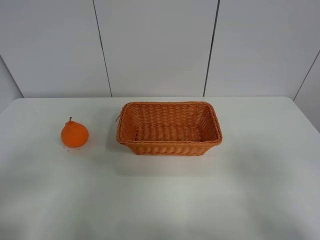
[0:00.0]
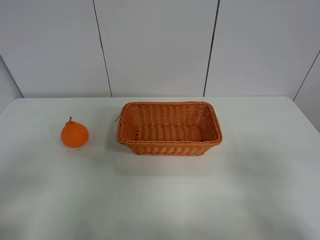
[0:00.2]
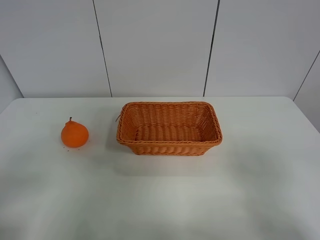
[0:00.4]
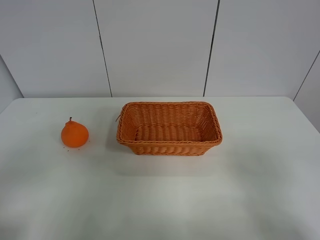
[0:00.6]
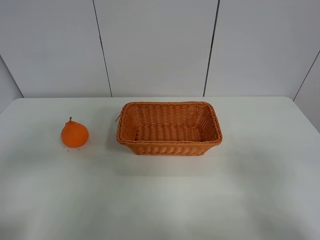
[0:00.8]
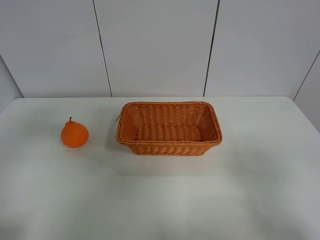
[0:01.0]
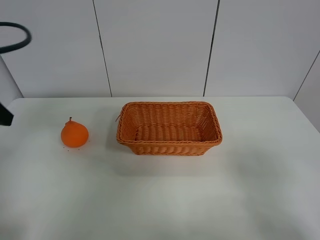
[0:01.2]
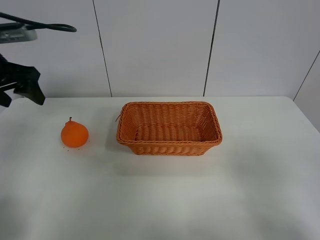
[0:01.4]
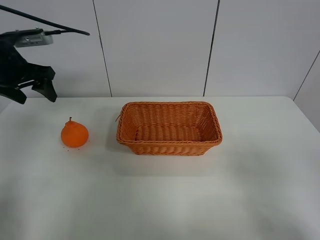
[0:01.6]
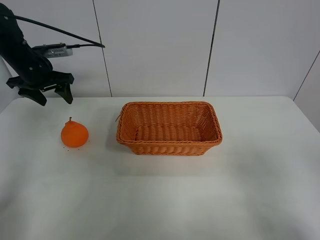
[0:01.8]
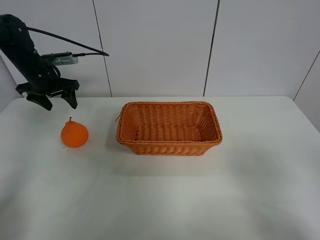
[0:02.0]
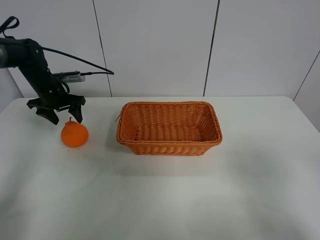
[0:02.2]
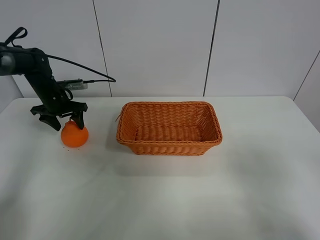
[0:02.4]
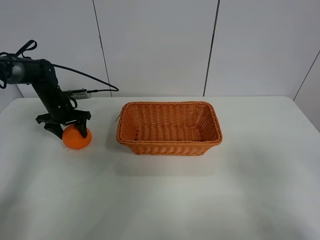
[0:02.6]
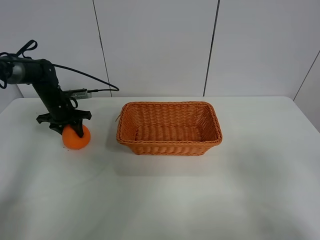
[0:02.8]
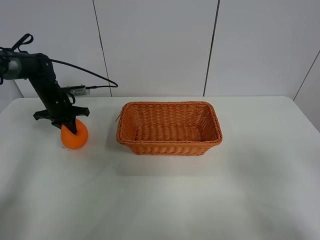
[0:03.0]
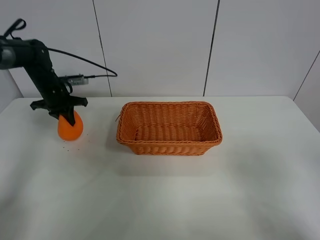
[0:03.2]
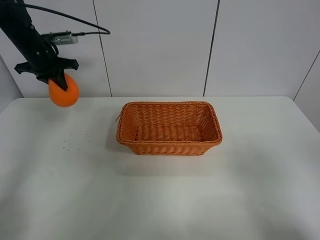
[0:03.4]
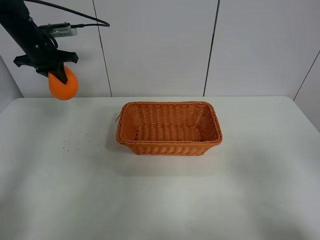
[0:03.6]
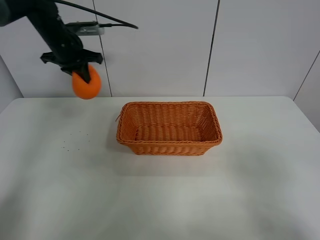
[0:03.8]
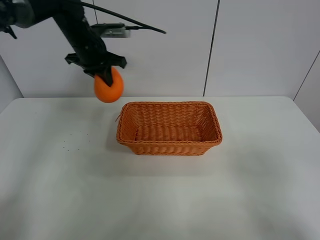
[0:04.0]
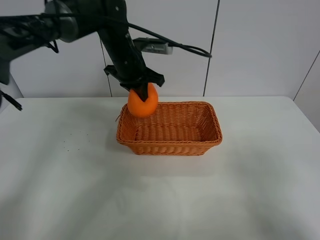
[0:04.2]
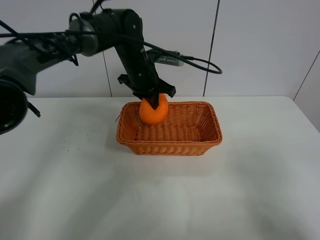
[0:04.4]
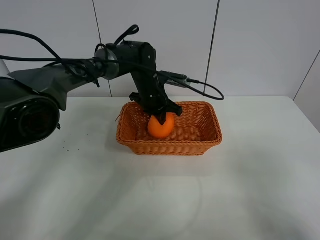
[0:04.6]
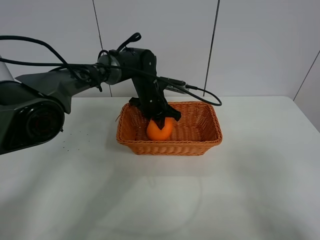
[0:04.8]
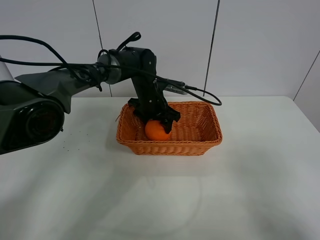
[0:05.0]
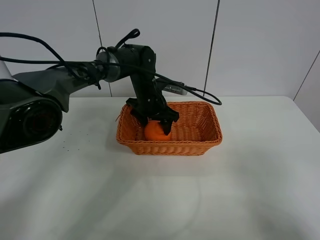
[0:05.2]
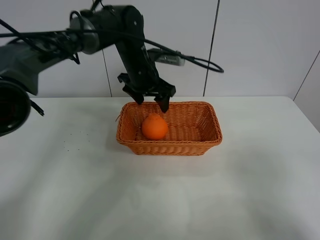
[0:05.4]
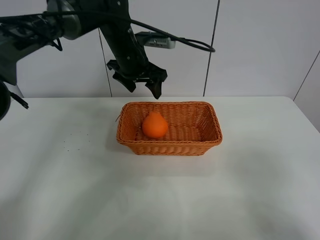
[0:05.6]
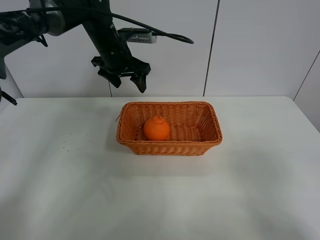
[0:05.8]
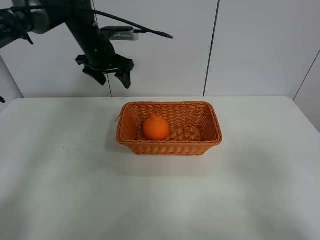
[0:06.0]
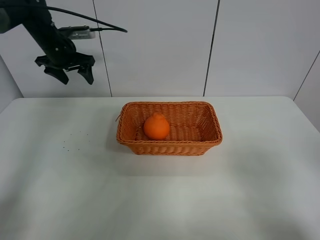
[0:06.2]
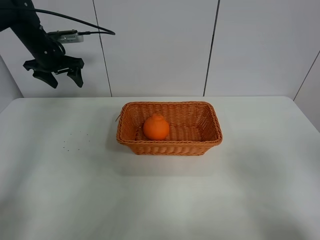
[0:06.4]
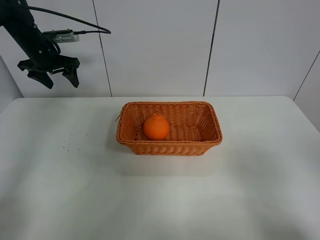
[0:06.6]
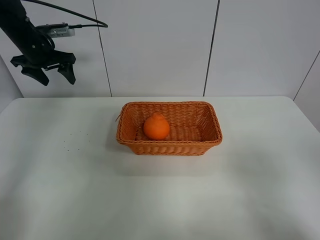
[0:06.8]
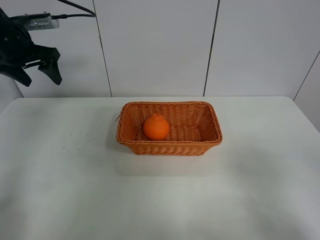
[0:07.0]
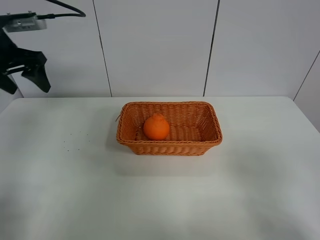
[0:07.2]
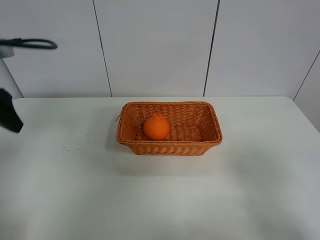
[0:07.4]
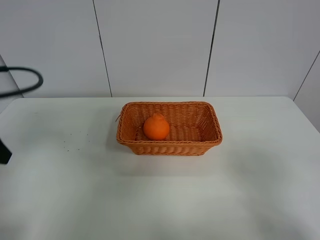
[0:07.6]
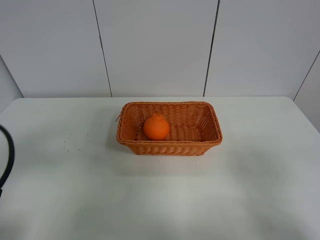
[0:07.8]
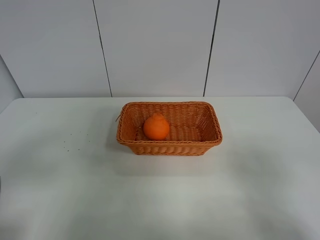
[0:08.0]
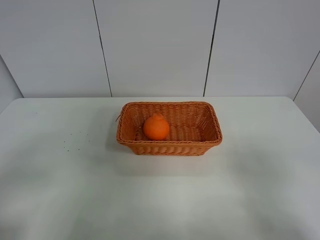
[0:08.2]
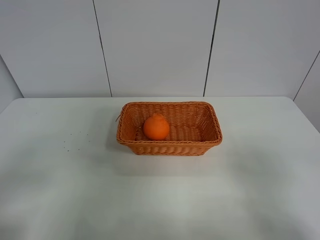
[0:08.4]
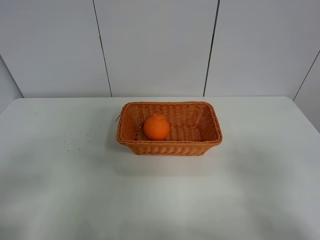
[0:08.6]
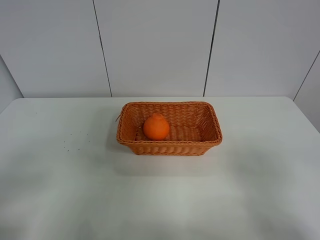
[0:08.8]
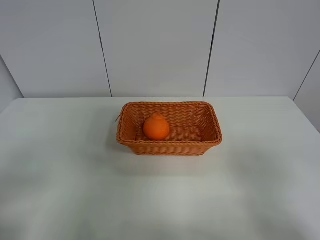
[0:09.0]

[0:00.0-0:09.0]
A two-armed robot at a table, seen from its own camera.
Task of the whole recording: left gripper grabs oranges and puts them in the basket.
Step, 0:00.0 to 0:02.8: Grasp the orange with left gripper.
Step, 0:03.0 to 0:06.0: Place the orange in the basket with left gripper.
0:00.0 to 0:01.6: The left gripper moves forward, about 35 cm.
0:01.6 to 0:03.0: The left gripper is displaced downward and forward by roughly 20 cm, and closes up.
0:03.0 to 0:04.4: The left gripper travels to the right by approximately 25 cm.
0:04.4 to 0:06.0: The left gripper is displaced to the left by about 15 cm, and opens.
0:06.0 to 0:07.6: The left gripper goes some 30 cm backward.
0:07.6 to 0:09.0: The left gripper moves backward, some 15 cm.
